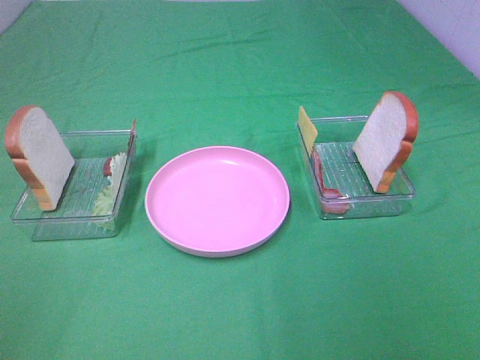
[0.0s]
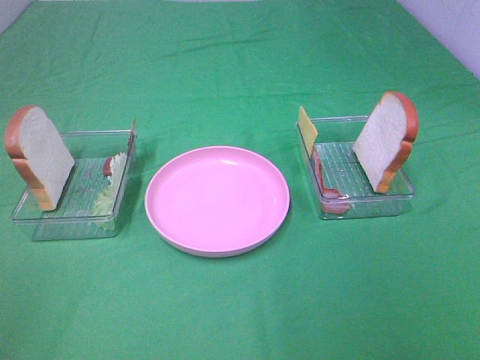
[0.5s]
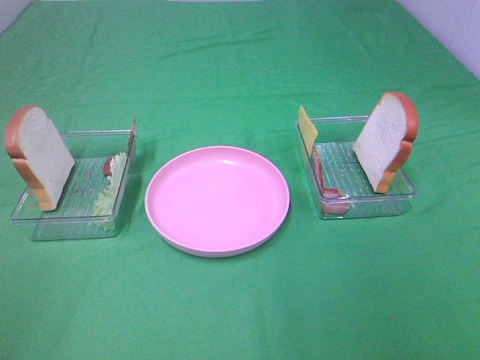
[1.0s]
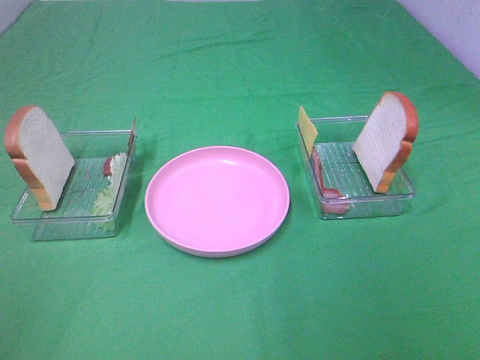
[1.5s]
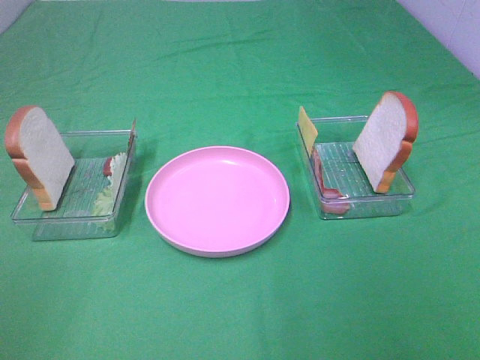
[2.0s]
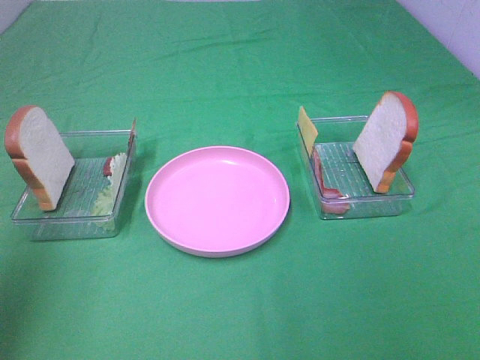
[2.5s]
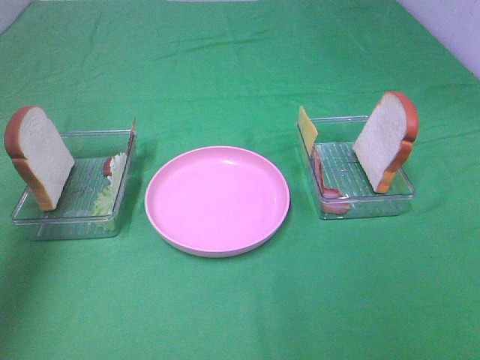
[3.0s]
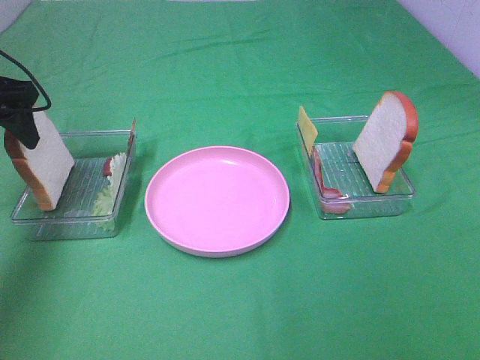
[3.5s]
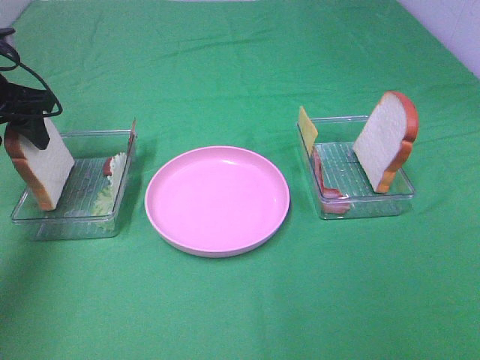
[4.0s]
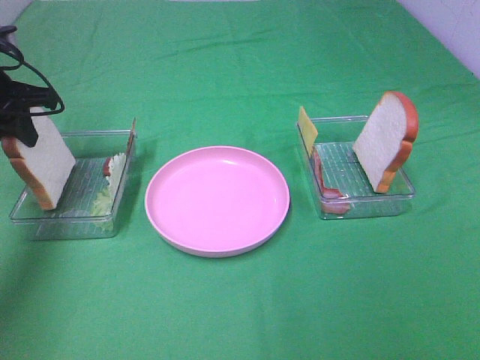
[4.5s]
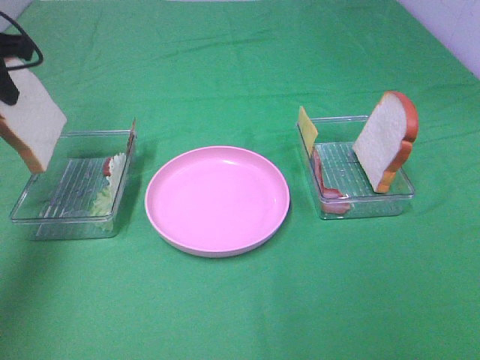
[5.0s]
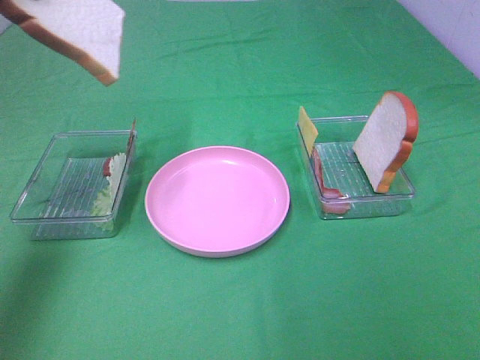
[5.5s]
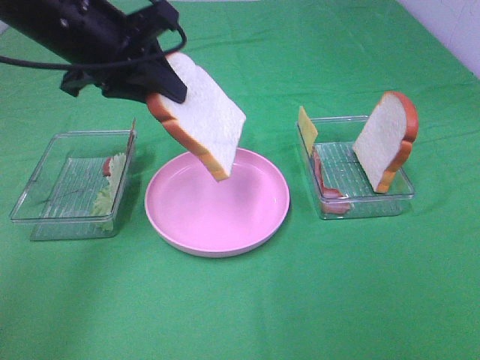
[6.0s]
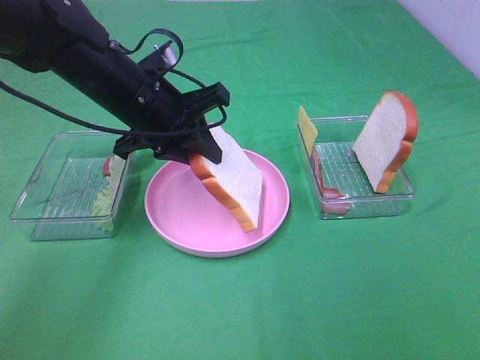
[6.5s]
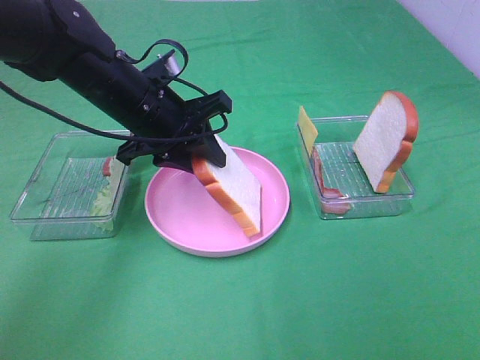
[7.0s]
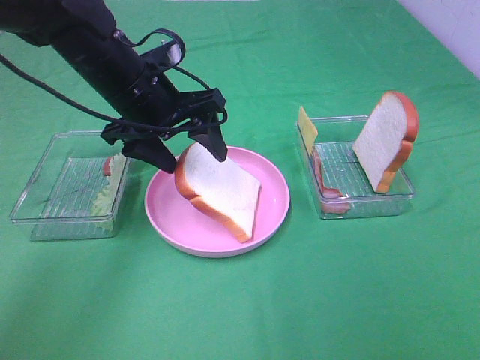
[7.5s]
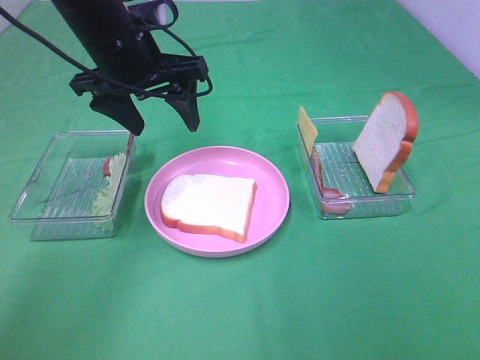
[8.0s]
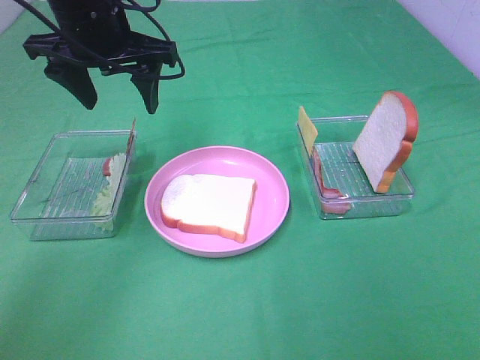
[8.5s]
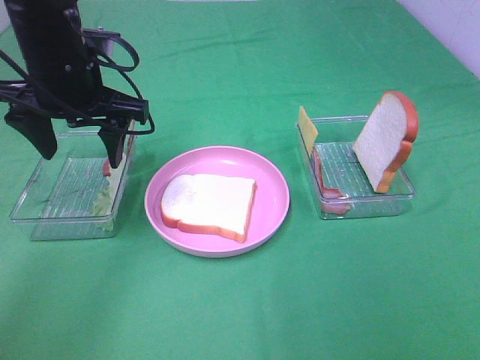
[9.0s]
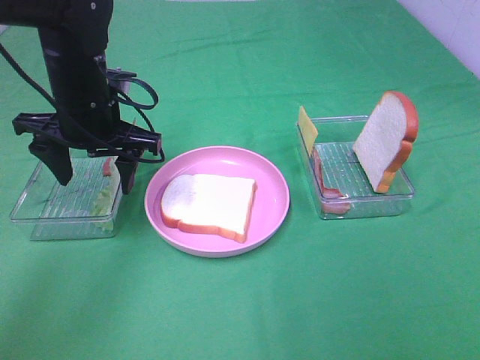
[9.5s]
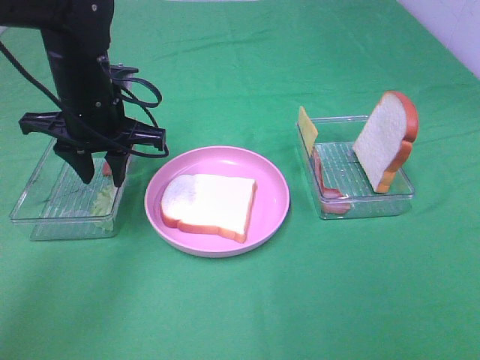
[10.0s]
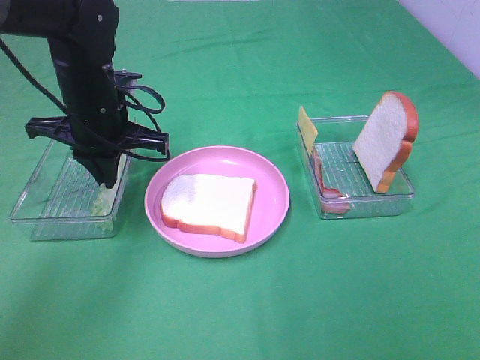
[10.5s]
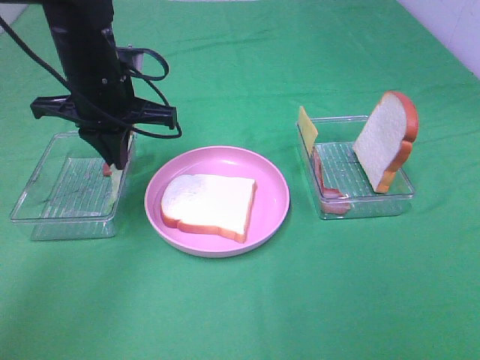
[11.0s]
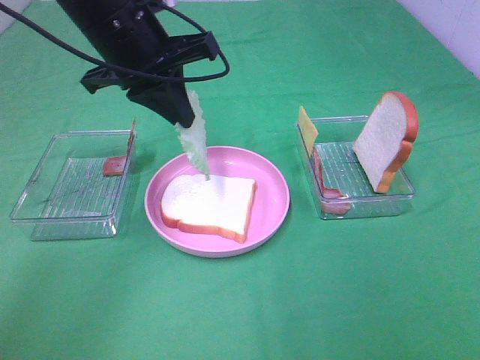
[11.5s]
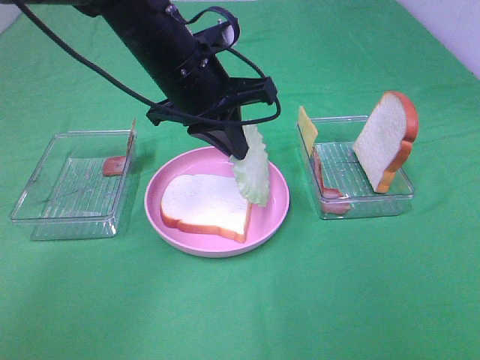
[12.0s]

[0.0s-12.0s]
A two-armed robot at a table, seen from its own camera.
Task of the whole recording: Make sandwiches.
Step, 0.0s to 4.5s: Left hand:grab the bread slice.
Step, 5.0s to 7.5s: Left hand:place the bread slice on the plate.
Step, 8.0s to 10.5s: Left hand:grab the lettuce slice.
2.0s to 4.0s: The left gripper travels forward by roughly 40 cm.
4.0s to 6.0s: The left gripper moves to the right and upward, some 15 cm, and closes up.
6.0s to 8.0s: The left gripper reaches roughly 10 cm downward, then returns, and opens.
8.0s to 10.0s: The left gripper heads downward, covering about 5 cm, and closes its fingers.
10.0s to 12.0s: The left gripper moves to the right, about 10 cm, and closes up.

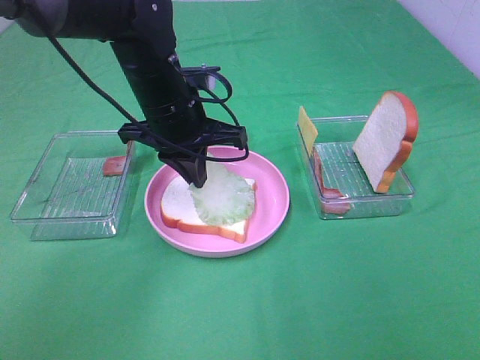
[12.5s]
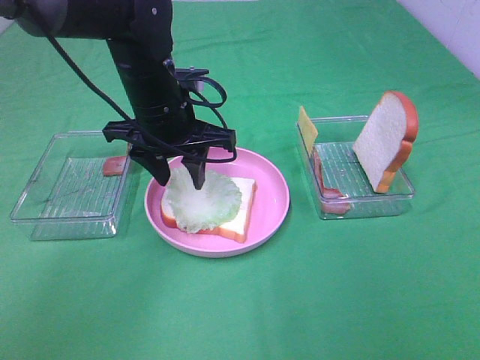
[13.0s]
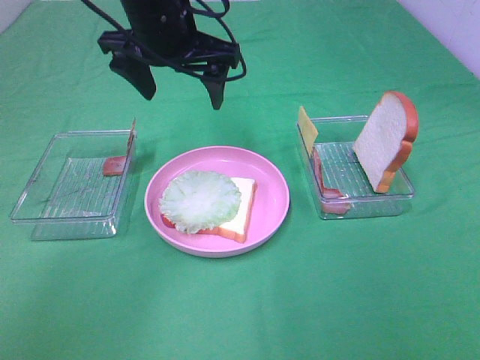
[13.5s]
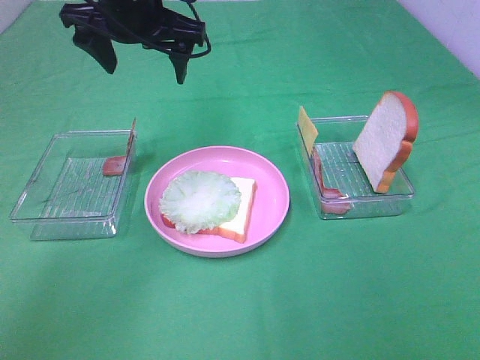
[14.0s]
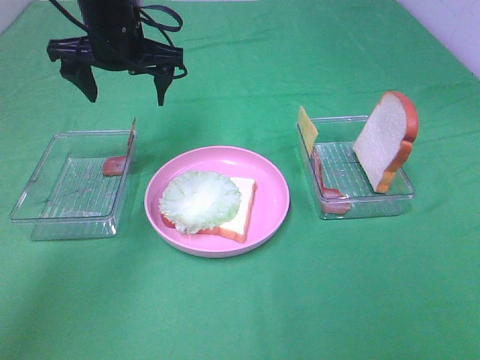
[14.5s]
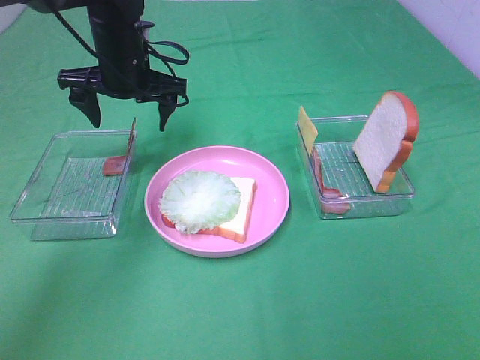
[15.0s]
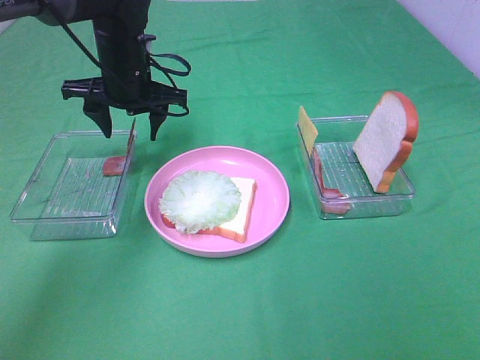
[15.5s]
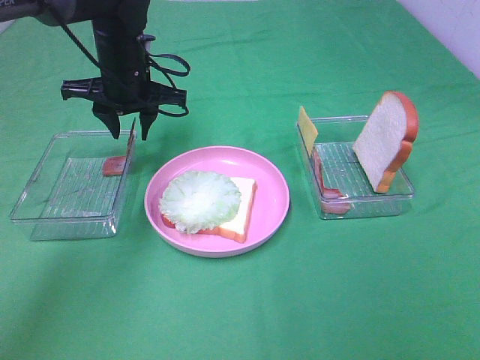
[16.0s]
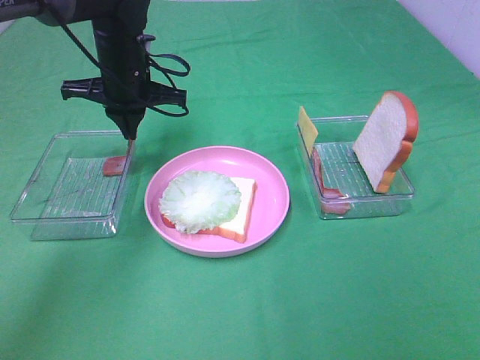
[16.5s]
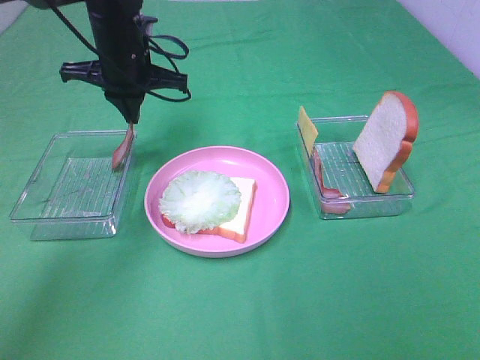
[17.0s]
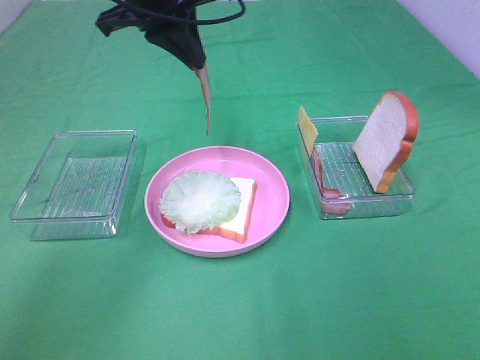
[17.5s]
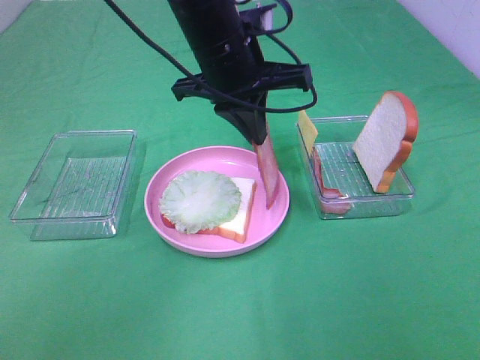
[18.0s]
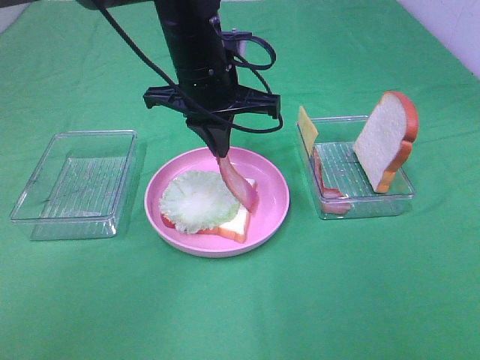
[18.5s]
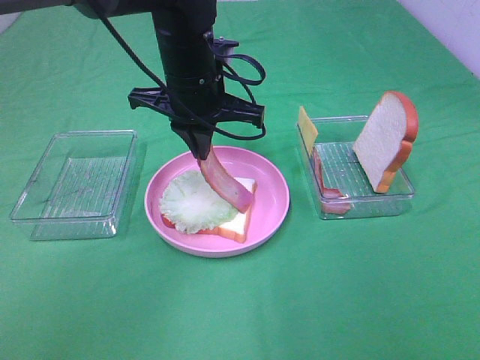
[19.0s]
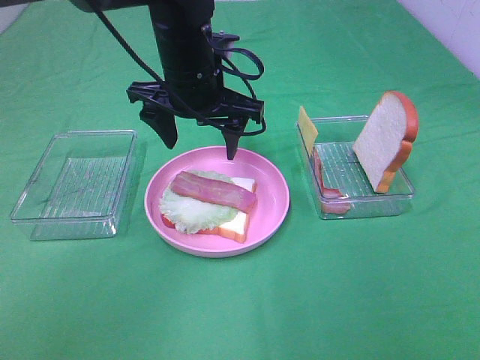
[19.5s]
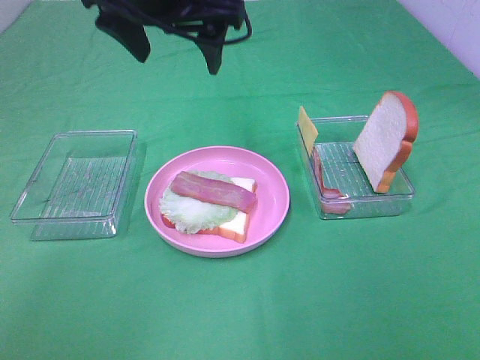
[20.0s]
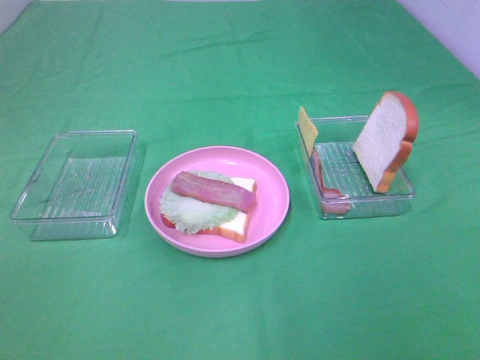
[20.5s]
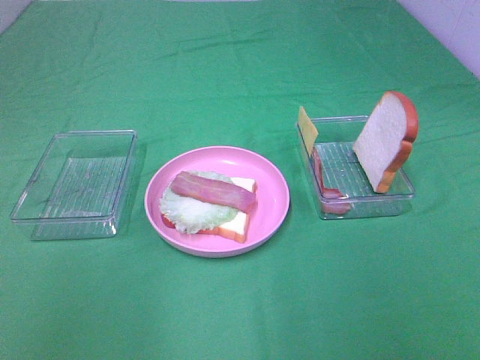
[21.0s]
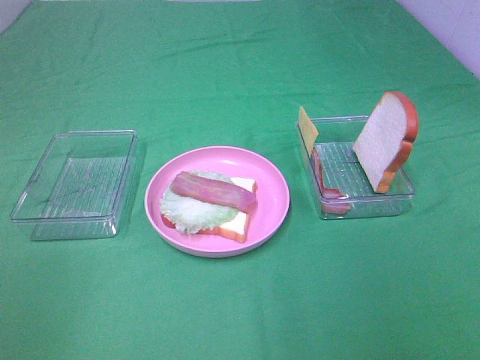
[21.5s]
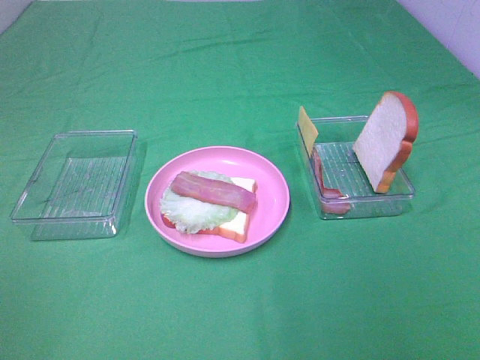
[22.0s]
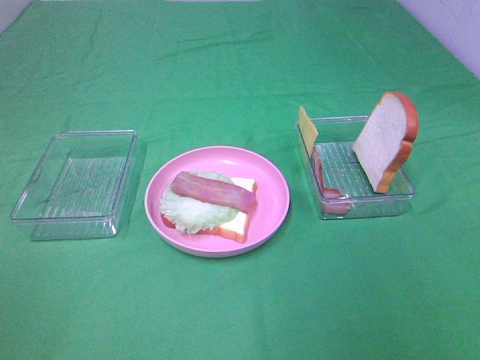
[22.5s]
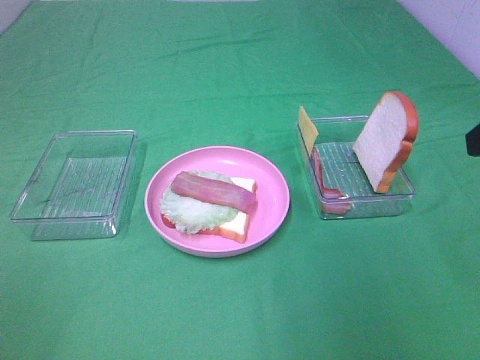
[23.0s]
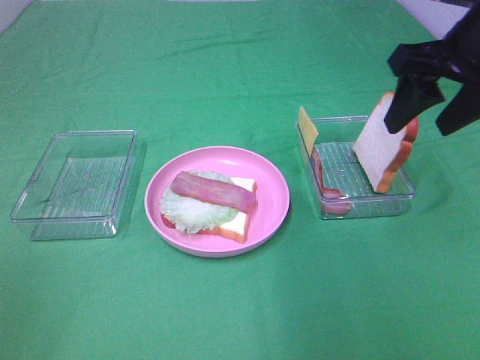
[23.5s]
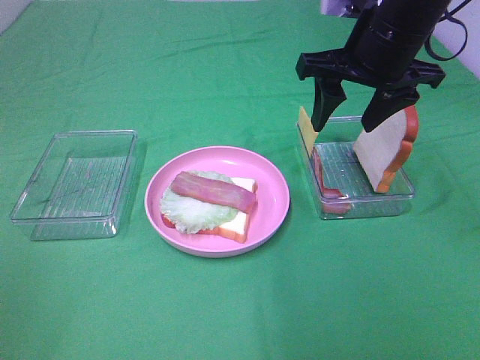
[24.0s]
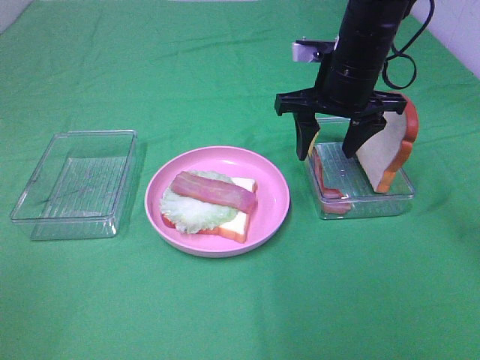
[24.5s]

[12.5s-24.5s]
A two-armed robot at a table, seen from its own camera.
Task of the whole recording: Make sandwiches.
Step, 13.5s to 16.5s: Left hand:grab the bacon.
Step, 17.0s to 19.5s: Left hand:place bacon on lettuce slice.
12.5s to 14.5s: The left gripper shifts roughly 10 cm forward, to the left and upward, and opens its fingers.
14.5s to 16.5s: The left gripper moves downward, some 5 cm, and closes up.
16.5s to 18.5s: The left gripper heads to the right and backward, covering approximately 15 cm, and moves about 15 cm upward and comes back.
18.5s to 20.5s: The left gripper shifts approximately 30 cm upward, backward and to the left, and opens its fingers.
22.5s to 24.5s: The right gripper shifts about 35 cm forward and to the left.

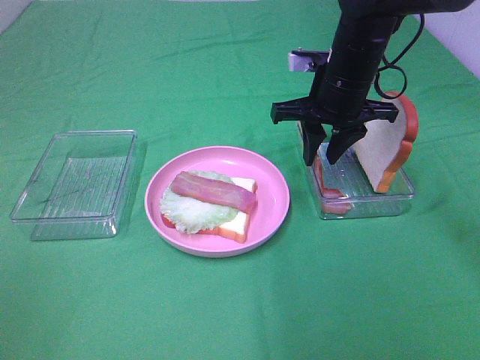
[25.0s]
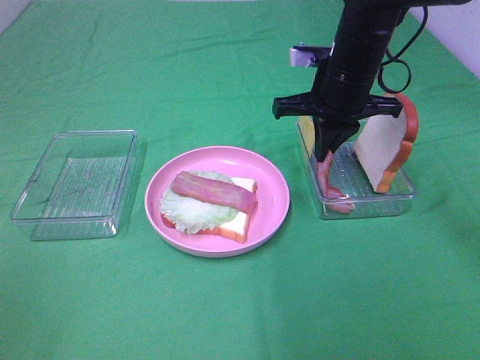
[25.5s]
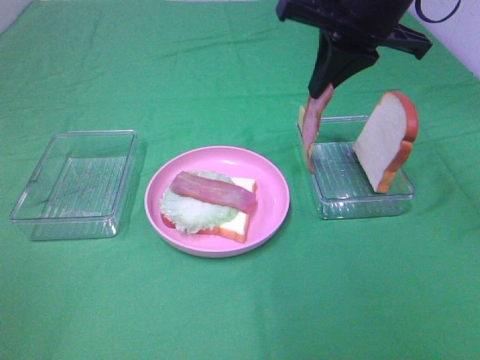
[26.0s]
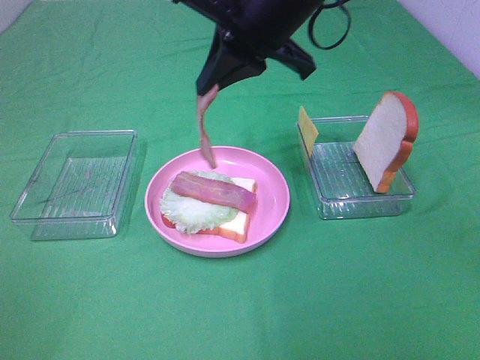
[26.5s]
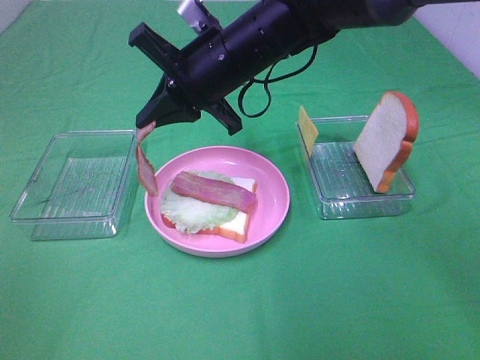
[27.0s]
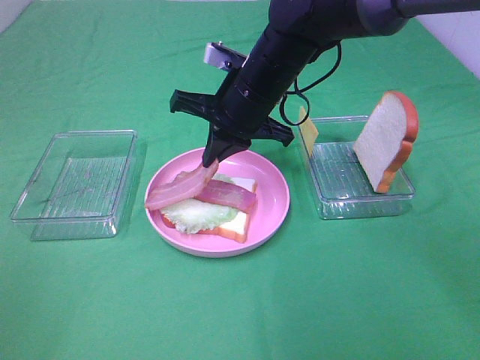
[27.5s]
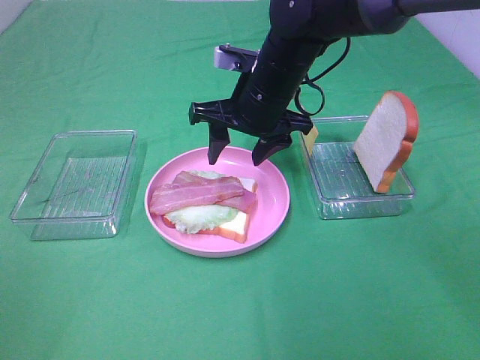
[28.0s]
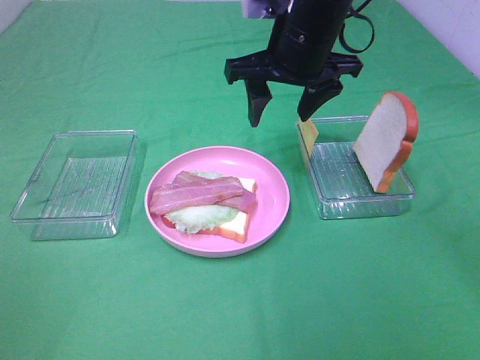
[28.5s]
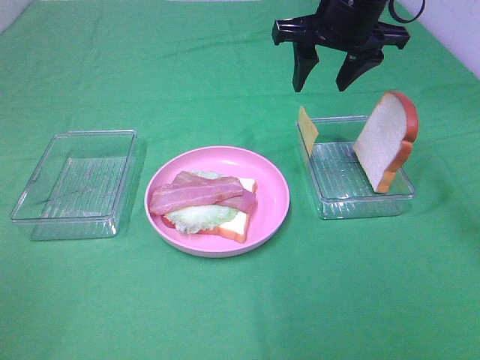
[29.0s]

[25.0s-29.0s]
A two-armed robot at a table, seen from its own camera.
Task of the whole recording: Make sandwiches.
Step, 26.0s to 28.0s: Right hand:place bacon on bacon.
25.0s to 27.0s: The right gripper heads to the left, covering roughly 15 cm, goes upward and returns, roughly 15 cm each way, and closes up.
27.0s to 29.0s: The right gripper travels to the right and upward by roughly 15 cm, and opens.
